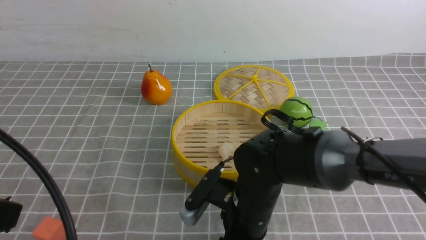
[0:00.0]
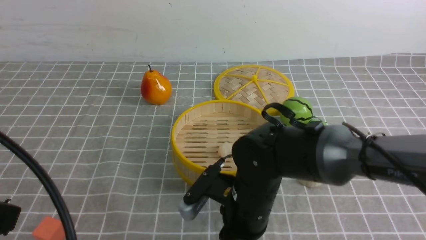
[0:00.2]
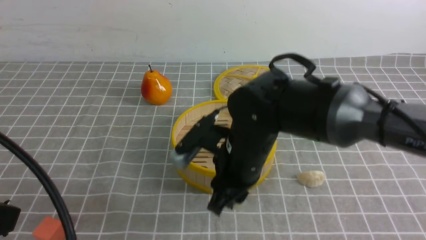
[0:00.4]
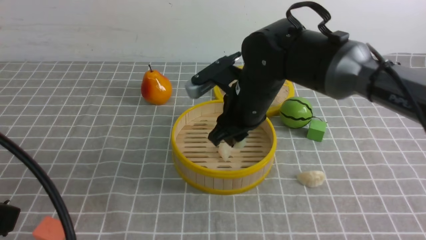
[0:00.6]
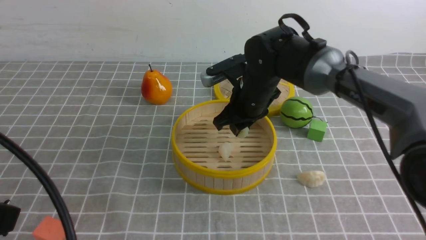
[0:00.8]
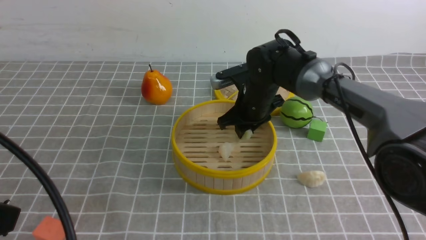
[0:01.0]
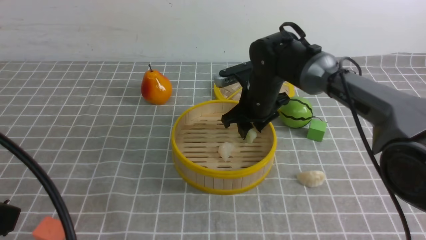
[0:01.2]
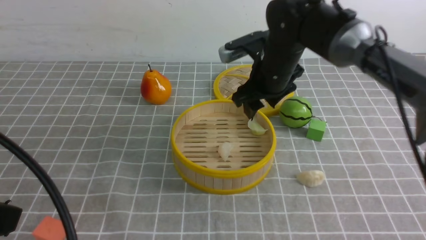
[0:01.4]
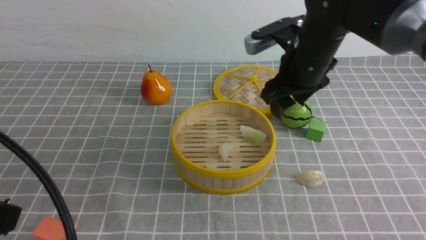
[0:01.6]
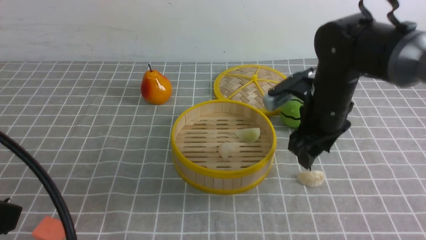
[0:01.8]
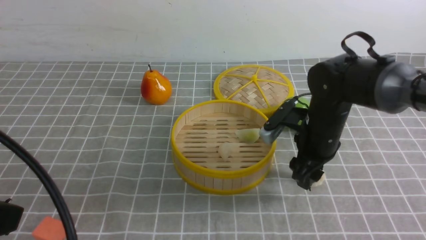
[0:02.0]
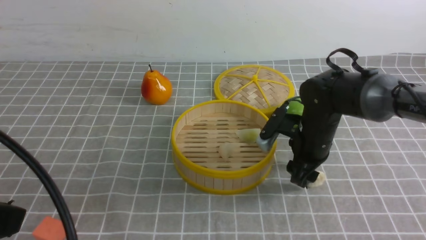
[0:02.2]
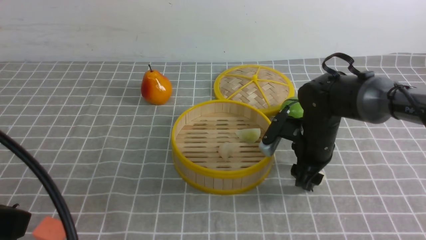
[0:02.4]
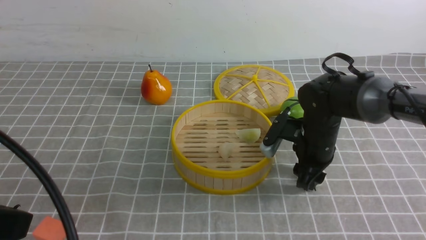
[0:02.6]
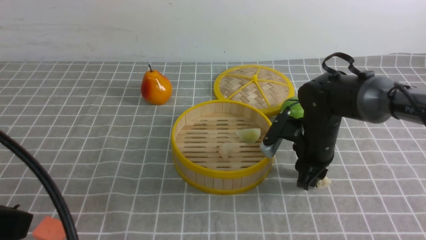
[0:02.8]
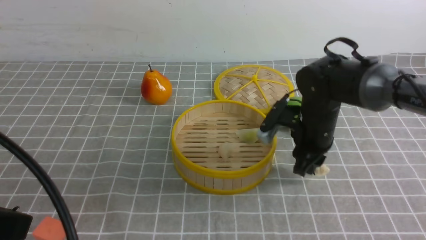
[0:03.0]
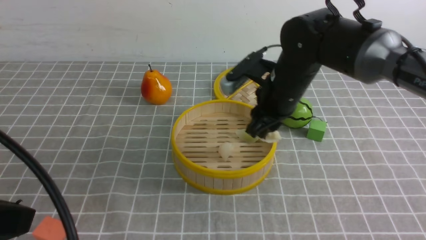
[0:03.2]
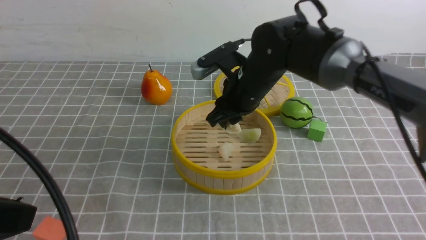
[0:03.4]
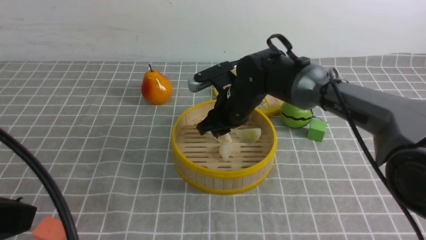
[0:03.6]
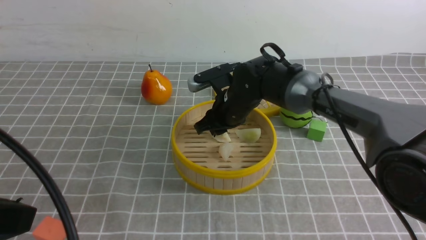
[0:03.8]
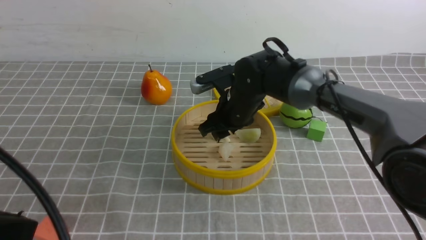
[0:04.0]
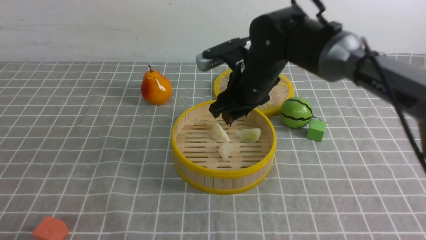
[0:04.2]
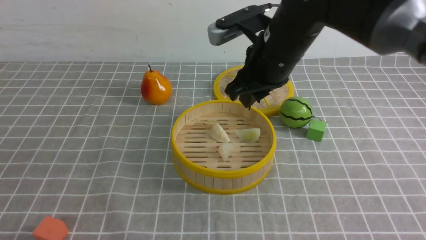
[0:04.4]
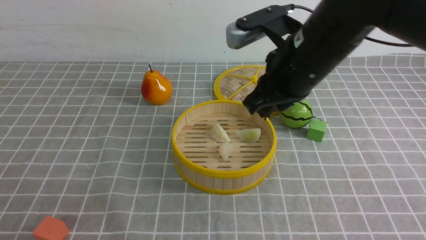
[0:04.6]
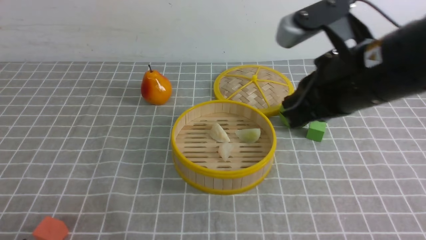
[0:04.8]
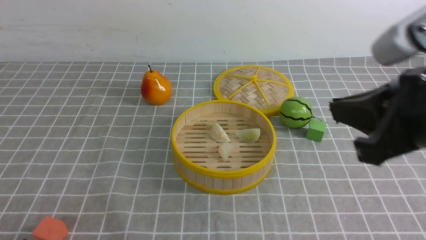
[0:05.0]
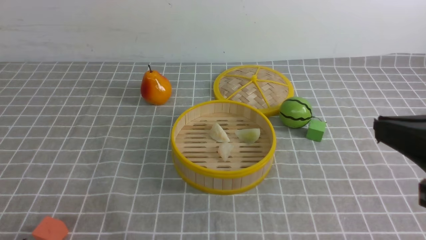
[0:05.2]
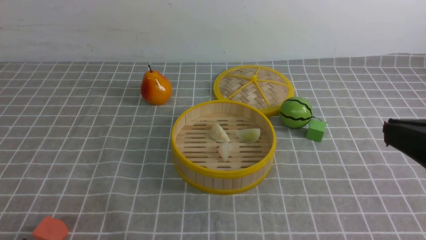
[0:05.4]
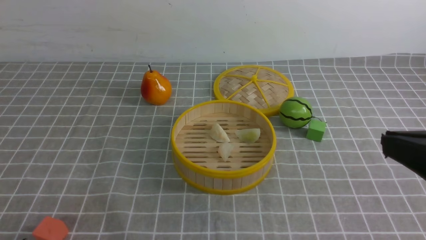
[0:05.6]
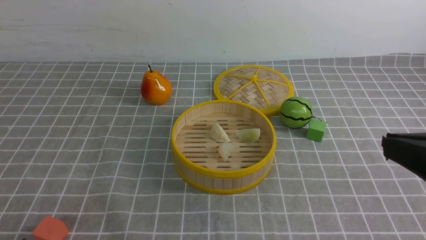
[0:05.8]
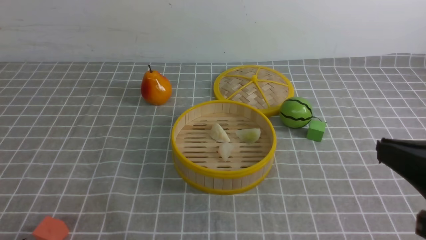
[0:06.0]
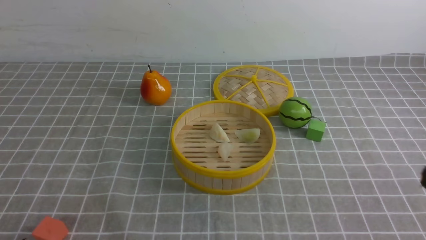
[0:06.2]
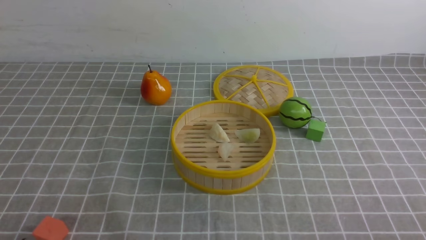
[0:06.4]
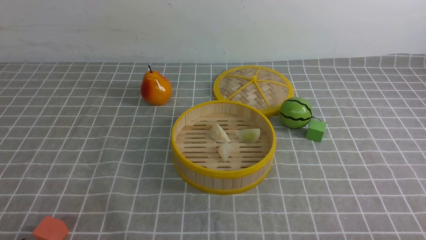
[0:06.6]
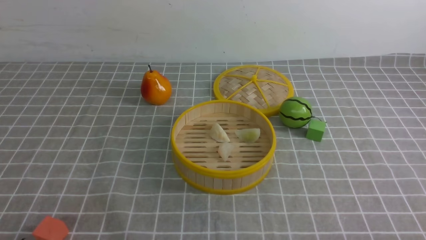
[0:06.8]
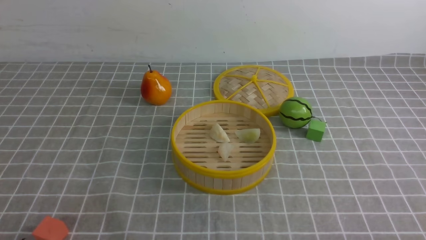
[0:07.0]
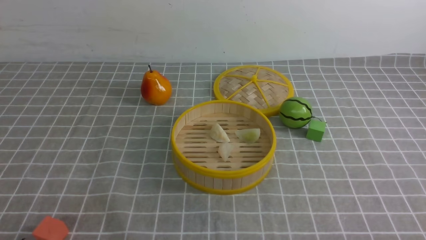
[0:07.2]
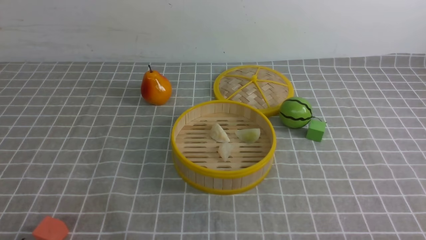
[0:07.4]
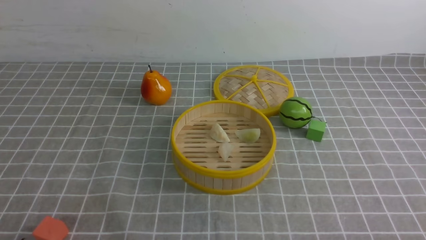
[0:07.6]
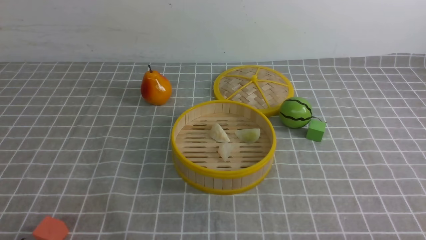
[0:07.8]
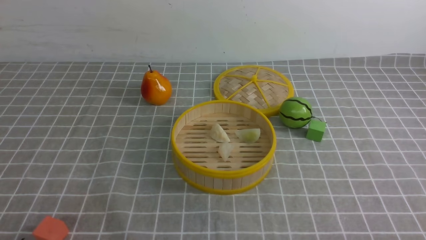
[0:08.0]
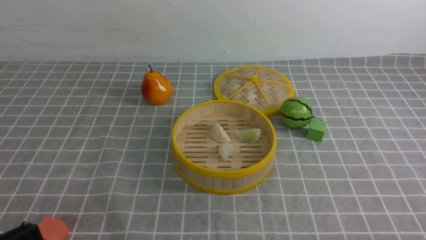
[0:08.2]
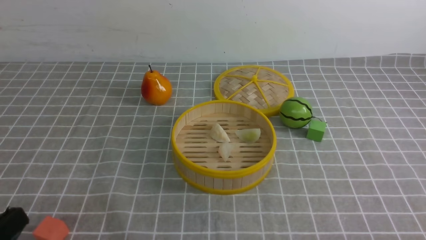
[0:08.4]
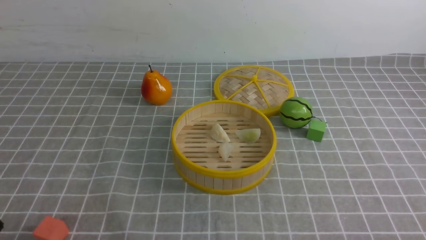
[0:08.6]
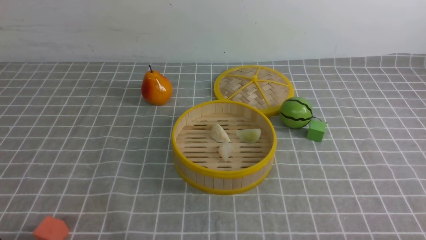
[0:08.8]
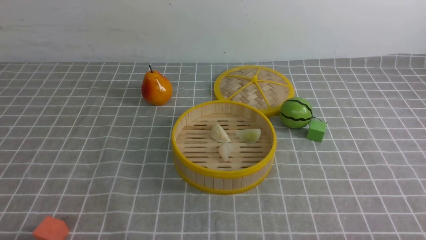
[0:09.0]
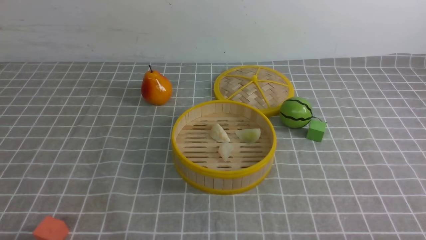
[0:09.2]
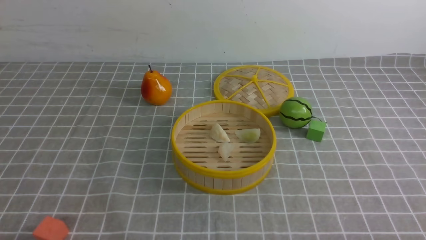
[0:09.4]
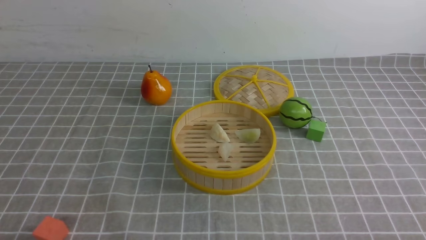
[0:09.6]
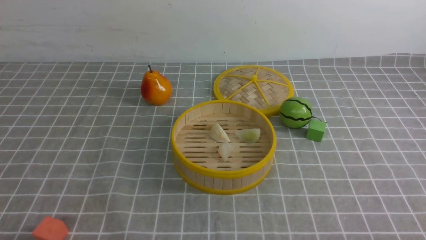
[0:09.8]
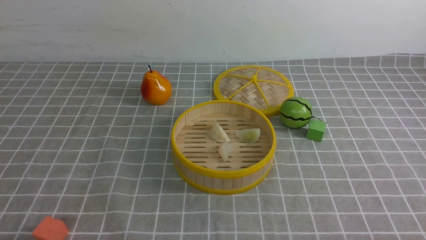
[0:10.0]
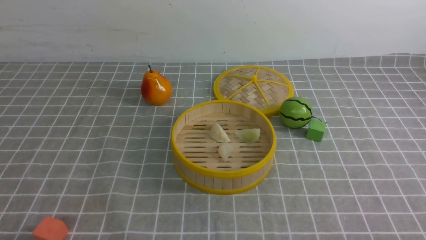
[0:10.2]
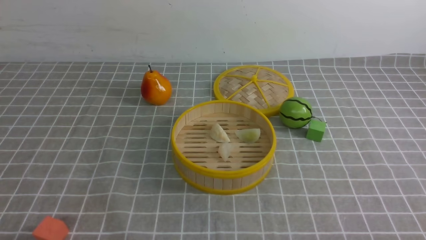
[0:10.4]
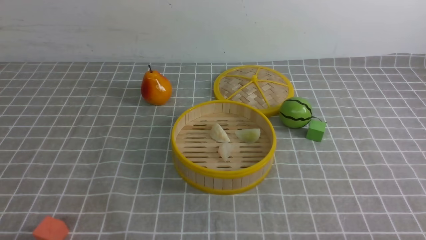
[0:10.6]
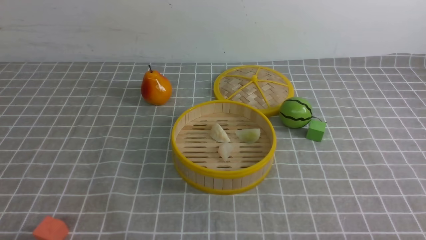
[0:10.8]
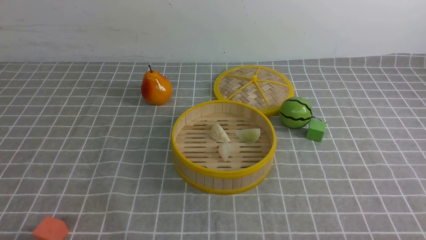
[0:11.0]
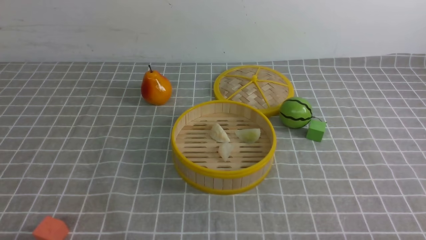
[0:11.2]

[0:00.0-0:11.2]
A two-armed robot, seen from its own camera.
Task of the whole recording: put the dumplings into the steamer on the table with the grey tablecloth.
Step, 0:00.2 to 0:01.4: use the right arm to put the dumpling into the steamer.
Step, 0:01.6 to 0:02.8: use the right arm to grab a dumpling.
Step, 0:03.2 to 0:04.2: use the right arm to put the dumpling into the steamer.
0:00.0 to 0:01.6: The right gripper is displaced forward, upward and to the right by approximately 20 cm.
0:01.6 to 0:03.2: The right gripper moves about 10 cm downward and comes back, and closes its fingers.
0:03.2 to 0:04.8: The left gripper heads downward, covering roughly 10 cm. The right gripper travels backward and upward by roughly 20 cm, and closes up.
0:04.8 to 0:06.4: The right gripper goes some 25 cm backward, downward and to the right.
0:09.6 to 0:11.2: The two grippers keep their place.
